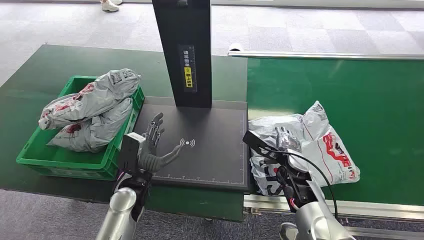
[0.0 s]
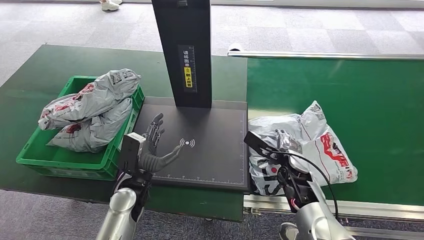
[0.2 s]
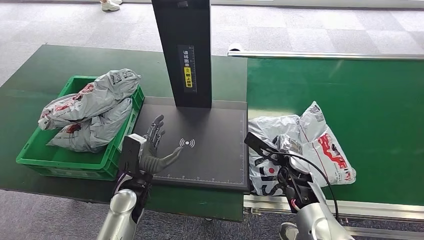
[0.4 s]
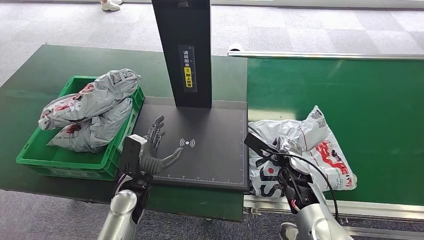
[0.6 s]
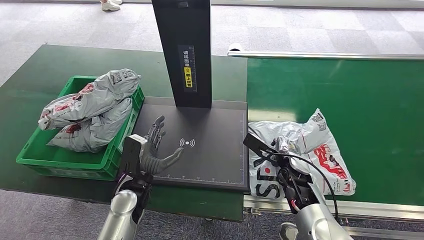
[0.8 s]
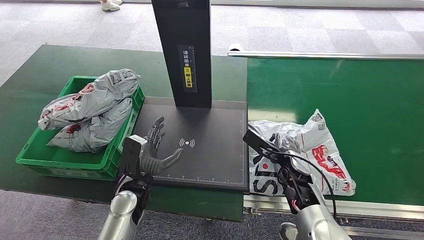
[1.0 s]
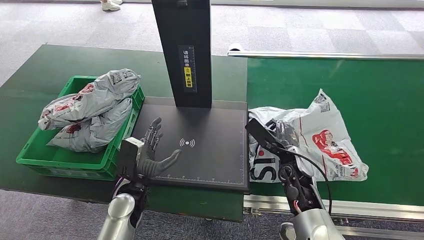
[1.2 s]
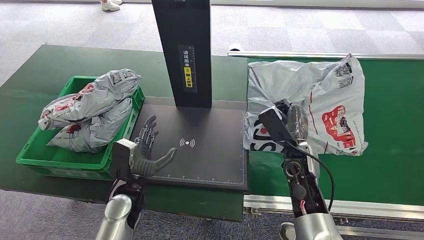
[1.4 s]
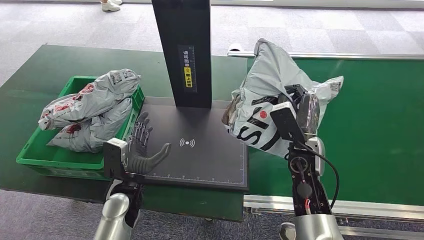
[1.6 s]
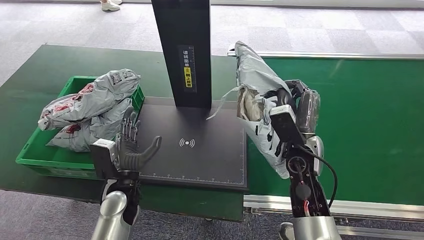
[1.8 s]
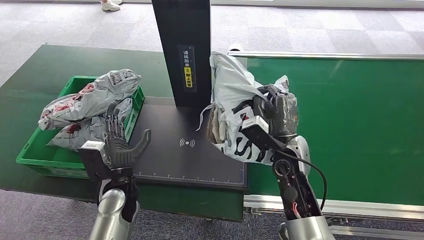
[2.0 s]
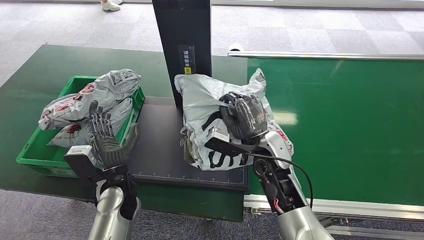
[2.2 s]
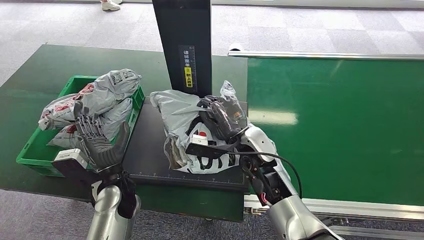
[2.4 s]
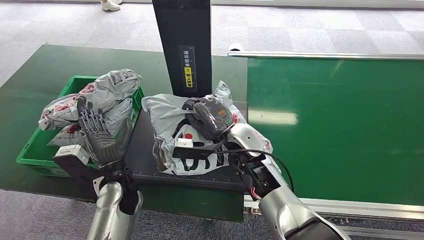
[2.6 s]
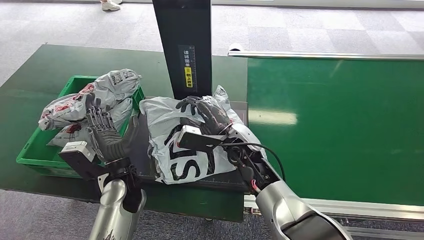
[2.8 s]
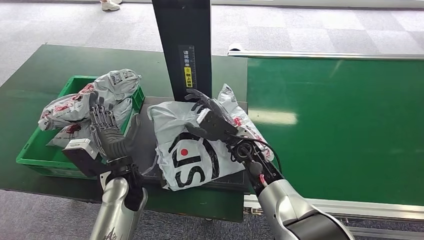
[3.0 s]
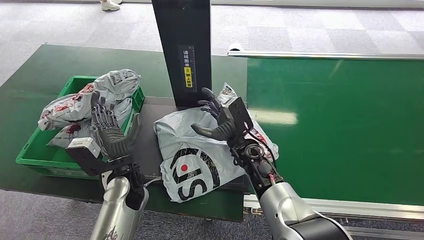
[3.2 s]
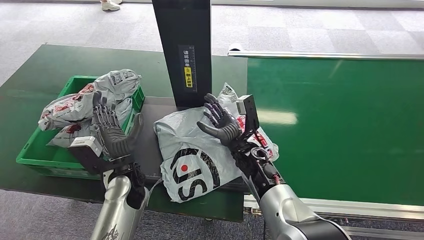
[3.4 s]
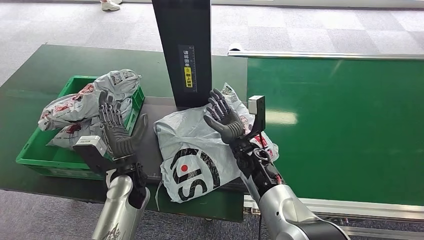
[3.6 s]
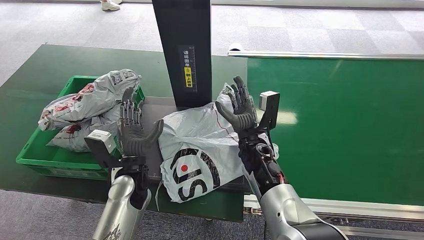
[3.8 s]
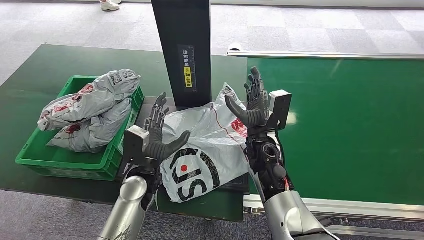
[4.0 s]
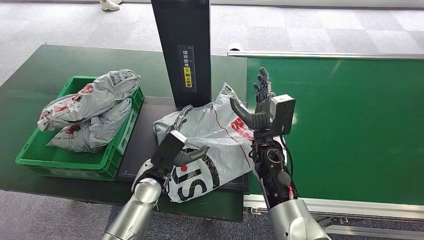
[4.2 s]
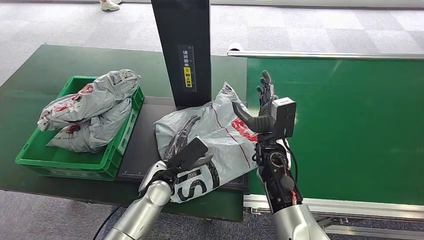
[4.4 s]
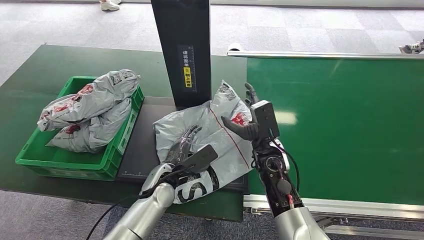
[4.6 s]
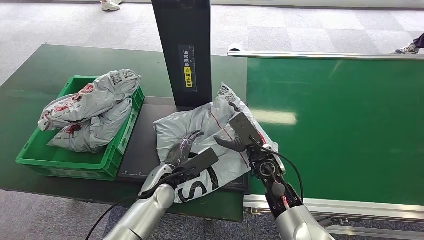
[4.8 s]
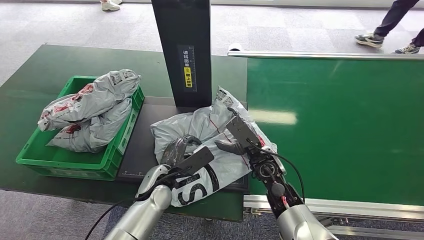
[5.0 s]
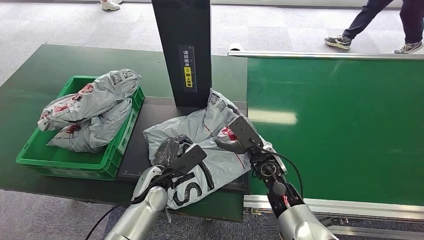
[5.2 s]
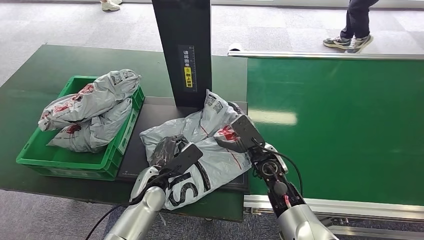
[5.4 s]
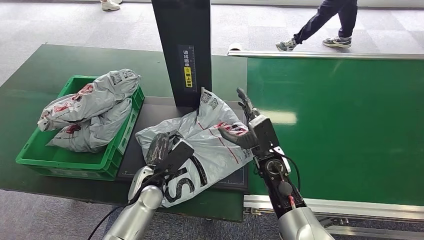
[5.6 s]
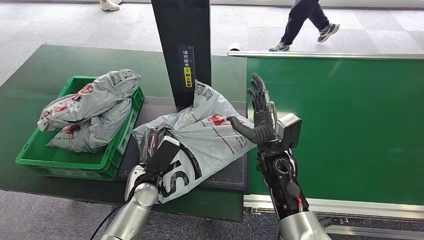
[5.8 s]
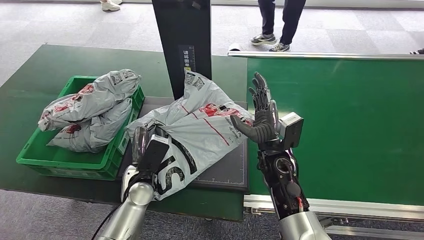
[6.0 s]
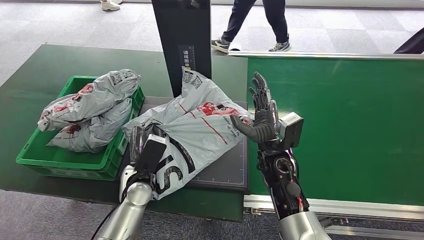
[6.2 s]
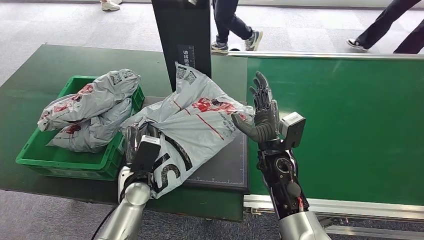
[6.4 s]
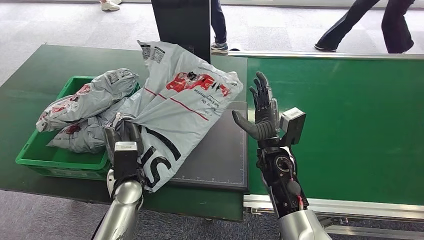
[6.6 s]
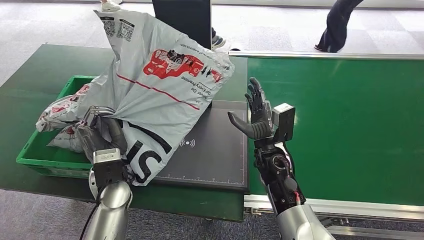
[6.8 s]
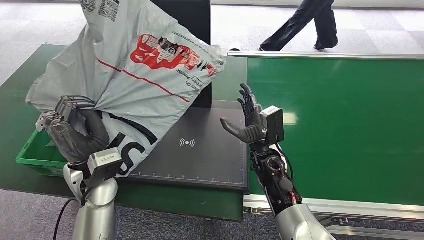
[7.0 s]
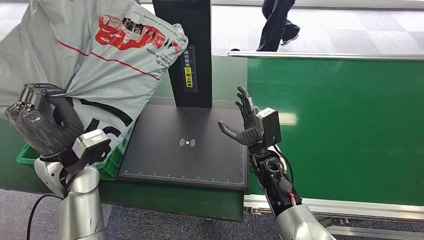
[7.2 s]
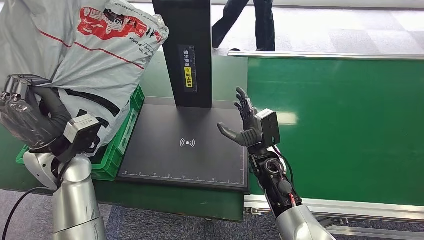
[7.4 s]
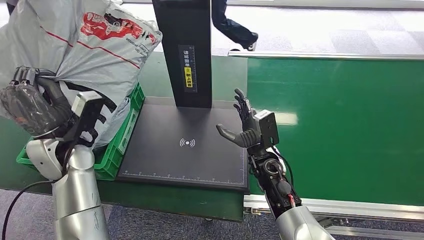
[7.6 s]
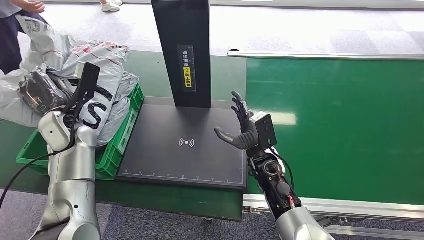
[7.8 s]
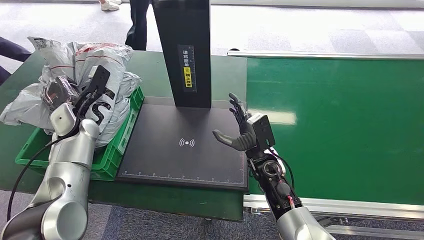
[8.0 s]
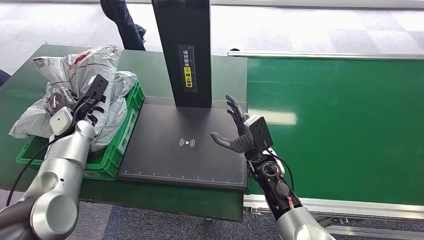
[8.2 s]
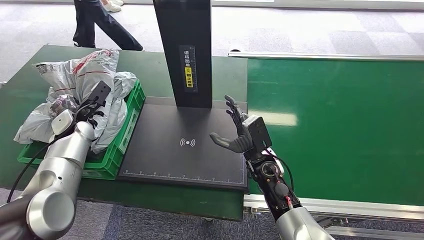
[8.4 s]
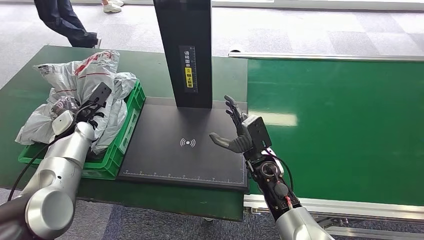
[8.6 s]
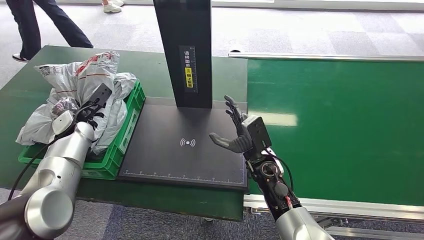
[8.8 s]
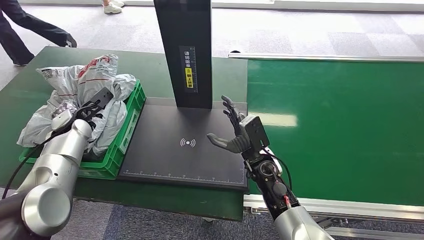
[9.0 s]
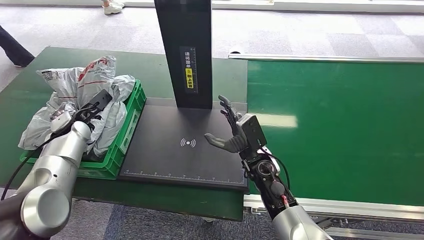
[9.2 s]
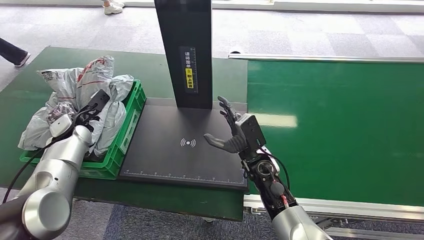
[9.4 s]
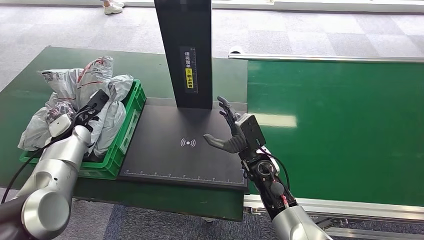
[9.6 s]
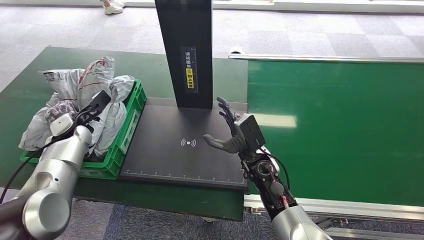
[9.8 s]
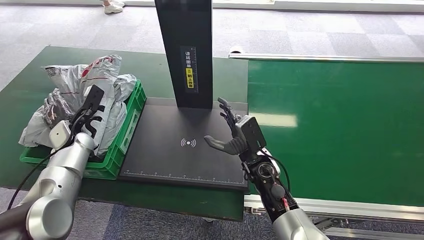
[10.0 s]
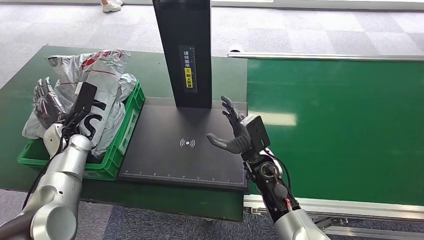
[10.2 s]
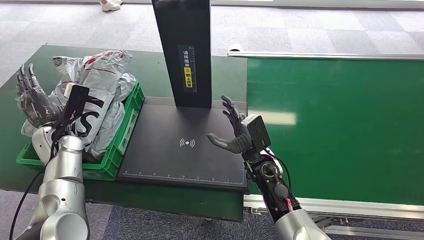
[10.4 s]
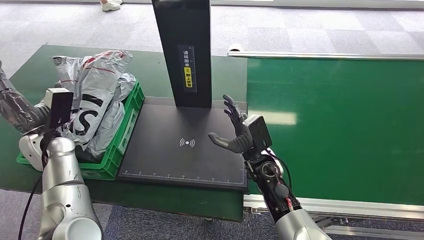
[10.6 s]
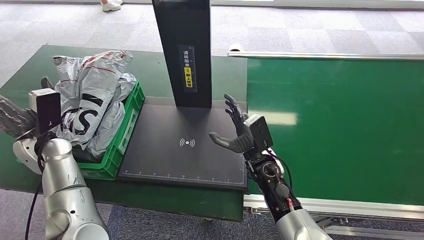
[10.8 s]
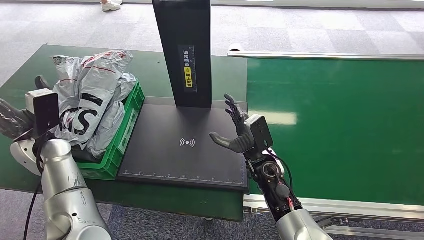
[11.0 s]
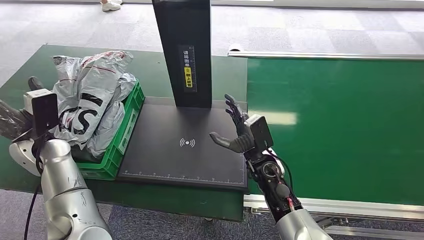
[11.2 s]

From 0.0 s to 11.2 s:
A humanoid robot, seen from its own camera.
Step, from 0.0 s to 1.8 s: Pick up the package from the conveyor belt.
Step, from 2.0 s to 3.6 s: Place the package onto the inbound machine.
Step, from 3.8 s to 7.0 s: Pick up the package from the inbound machine.
Step, from 7.4 s to 11.0 s: Place the package into the parcel locker.
From 3.2 s to 4.8 s: The left hand heads downward, covering approximately 5 cm. The right hand changes place by about 5 cm.
